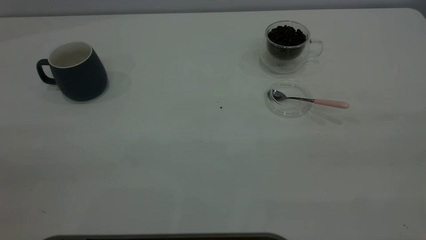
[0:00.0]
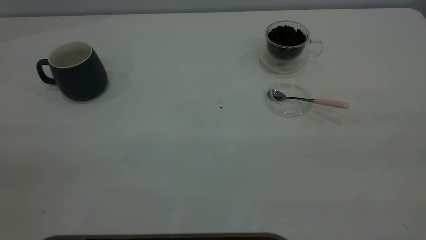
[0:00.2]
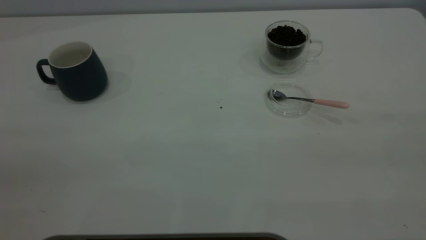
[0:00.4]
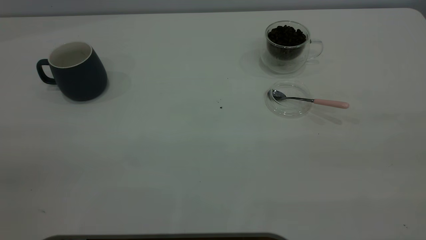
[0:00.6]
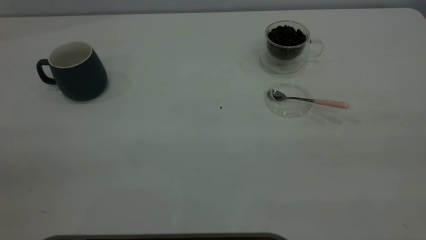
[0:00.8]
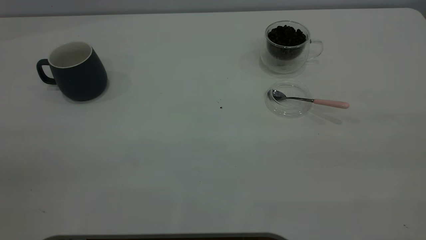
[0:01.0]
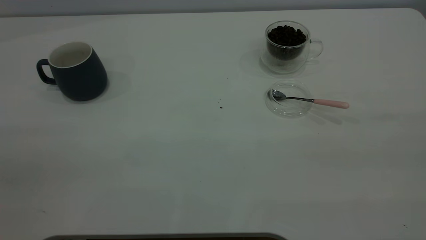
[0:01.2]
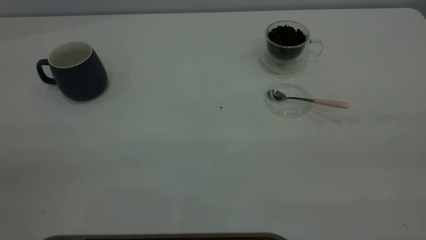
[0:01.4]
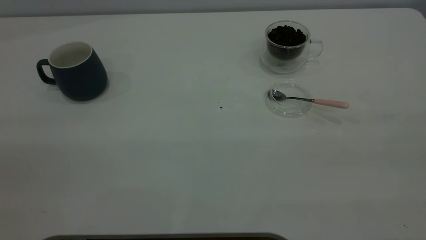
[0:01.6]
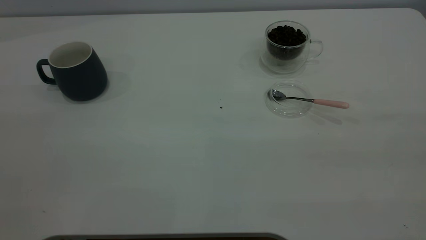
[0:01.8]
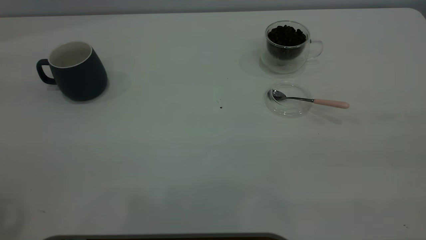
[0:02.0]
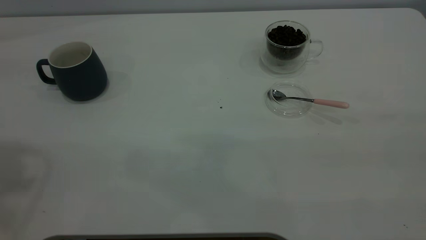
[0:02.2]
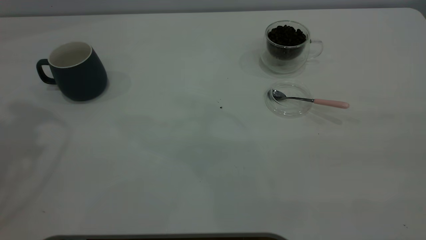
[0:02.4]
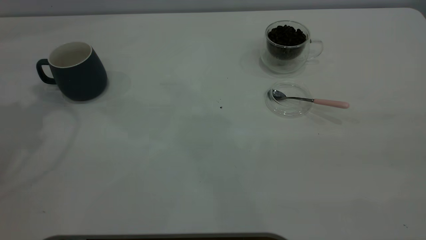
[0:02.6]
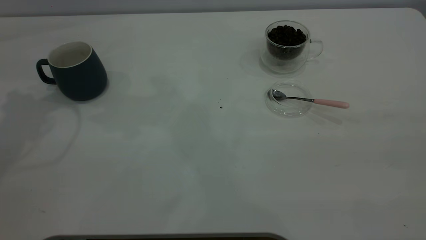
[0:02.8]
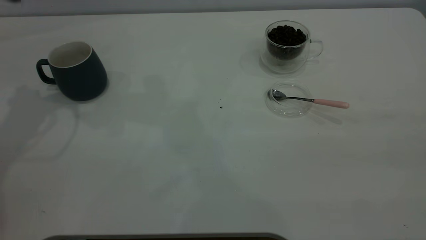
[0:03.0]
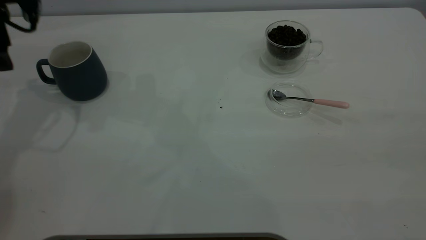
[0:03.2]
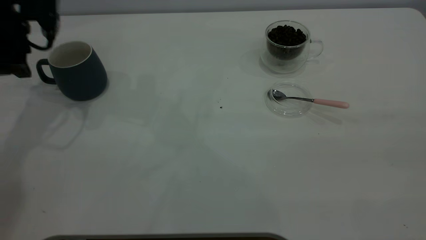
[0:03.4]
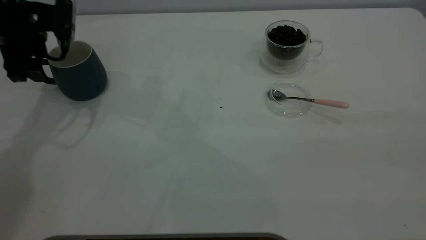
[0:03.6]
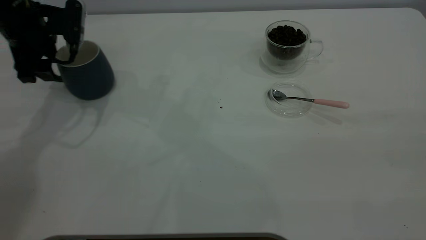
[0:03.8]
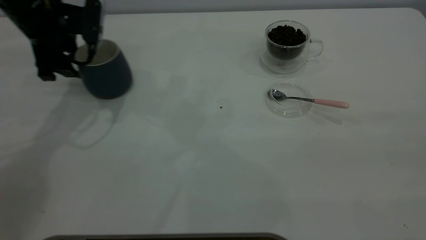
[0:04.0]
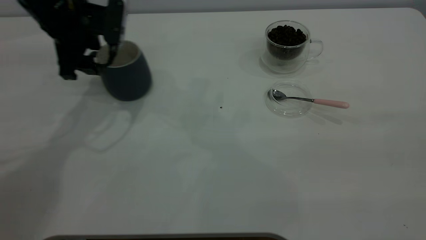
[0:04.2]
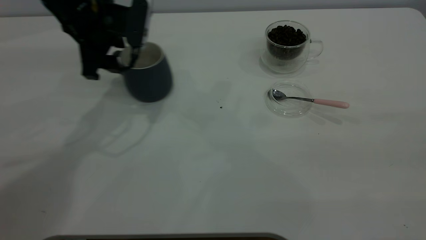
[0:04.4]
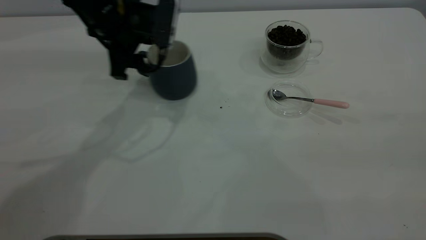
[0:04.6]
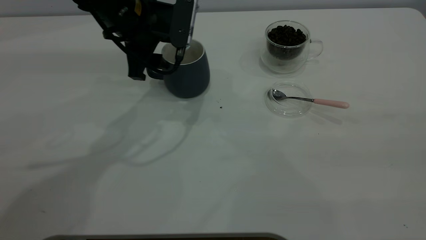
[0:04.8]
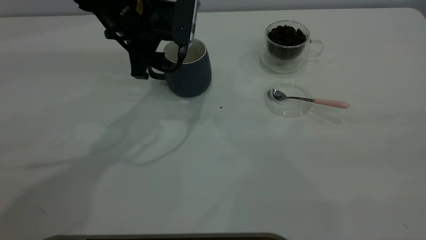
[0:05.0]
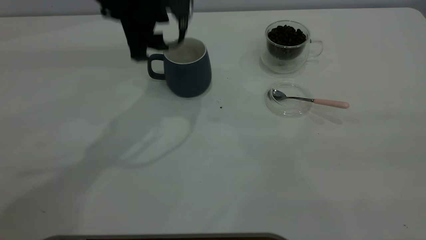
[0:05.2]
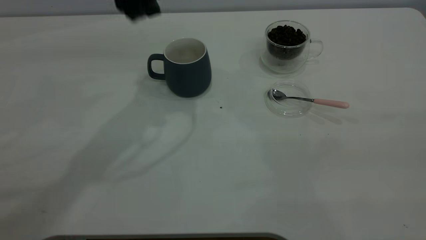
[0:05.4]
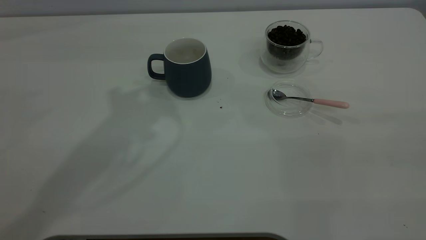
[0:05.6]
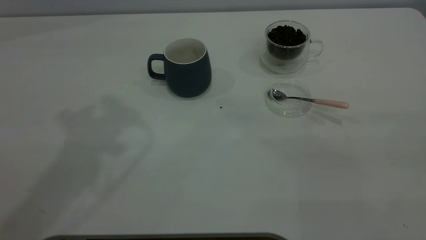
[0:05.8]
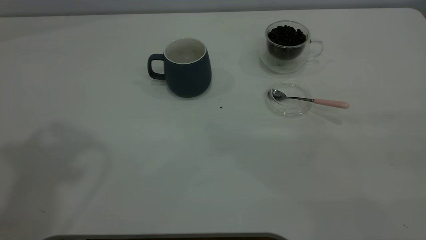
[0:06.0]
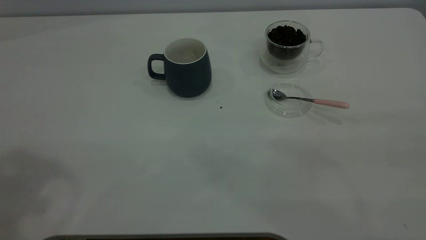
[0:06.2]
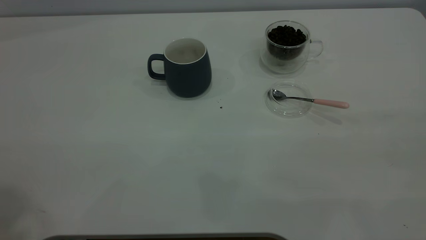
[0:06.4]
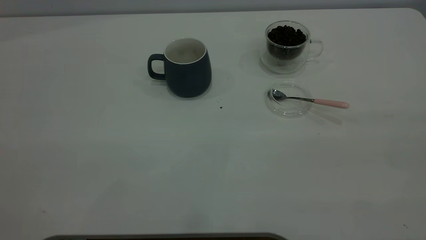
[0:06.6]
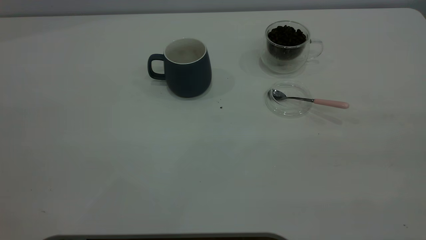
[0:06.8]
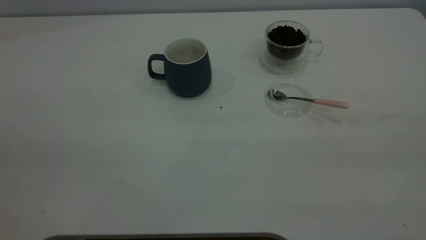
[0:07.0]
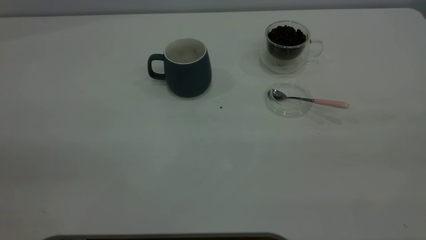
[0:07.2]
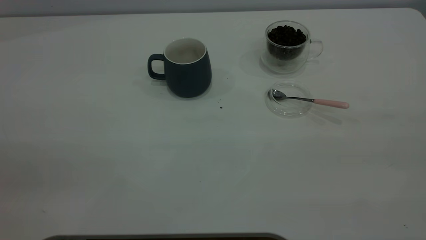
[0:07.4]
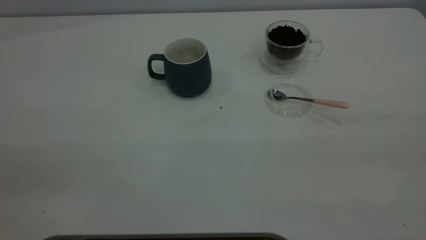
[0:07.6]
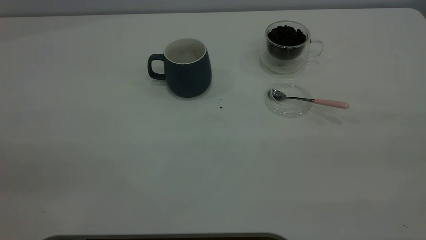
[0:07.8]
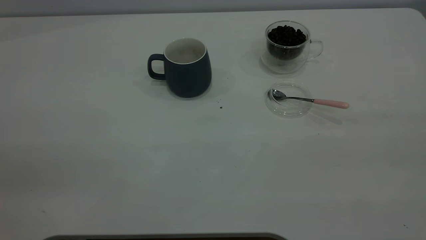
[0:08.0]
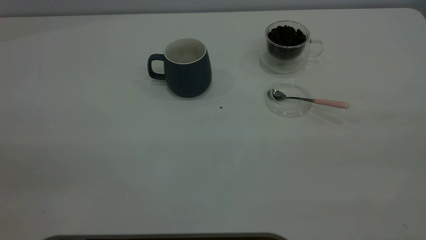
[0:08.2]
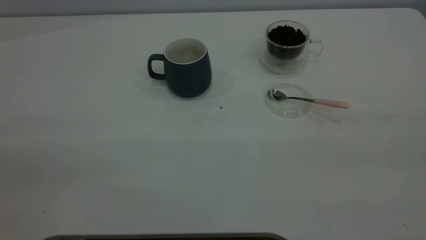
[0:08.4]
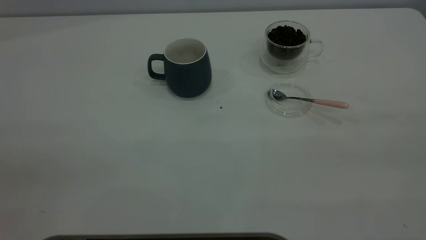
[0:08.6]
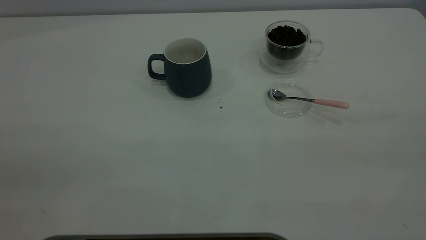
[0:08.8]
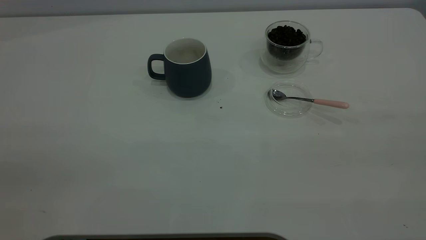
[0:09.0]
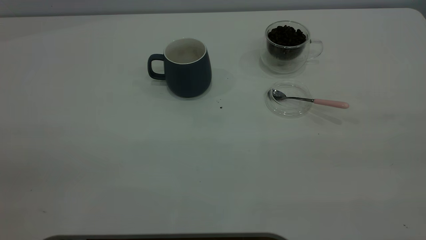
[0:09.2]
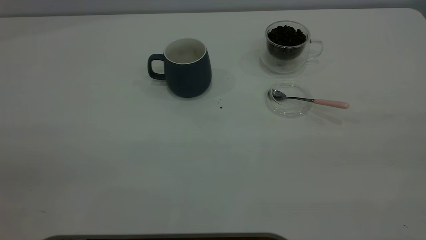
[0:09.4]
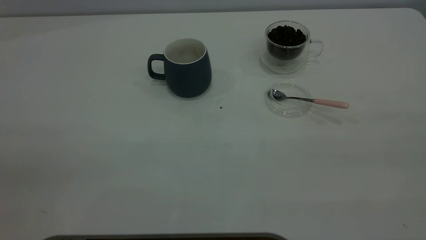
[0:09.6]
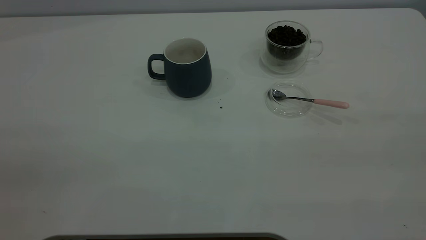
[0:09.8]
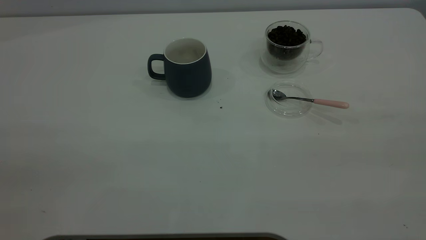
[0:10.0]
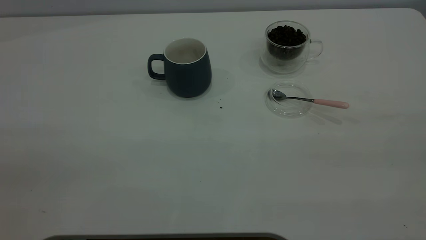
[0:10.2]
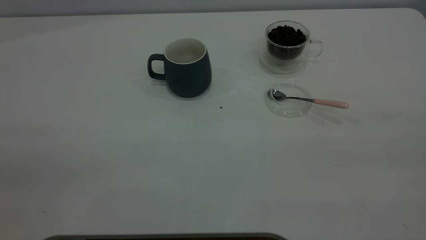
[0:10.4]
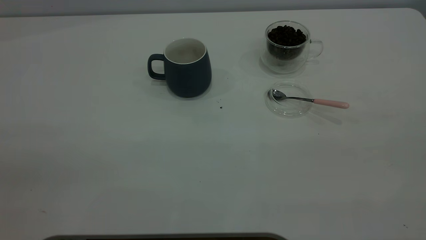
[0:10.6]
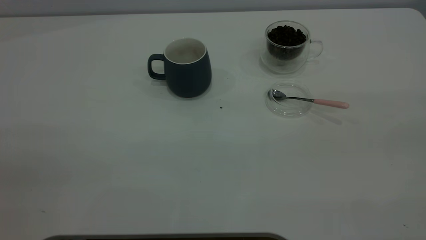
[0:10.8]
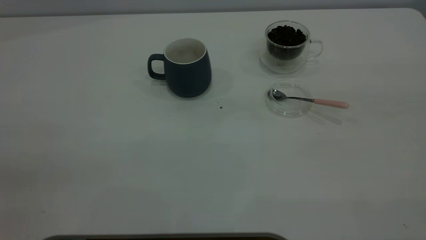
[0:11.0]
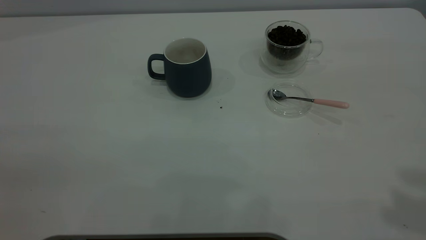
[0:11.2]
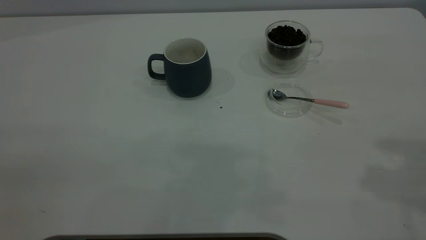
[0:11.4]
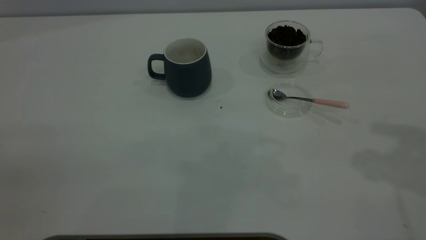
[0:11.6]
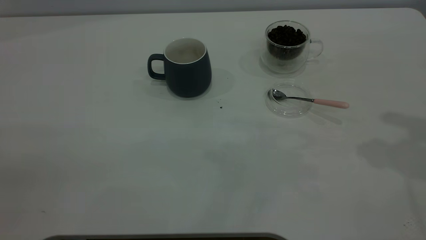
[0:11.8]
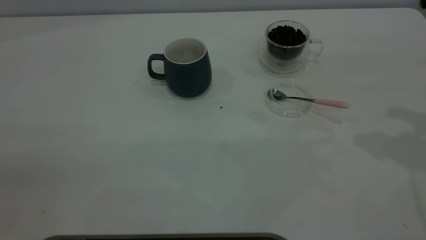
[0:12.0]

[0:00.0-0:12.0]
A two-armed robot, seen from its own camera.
Task of the whole recording: the left gripper place the grey cup in the center of the table, the right gripper take the pink spoon from the cup lid and scoop out the coffee beans from the coffee cup and put them into the grey cup, the right gripper put the spoon back into the cup lid.
Step, 0:00.0 to 0:05.2: Move the cup to the center of view.
0:03.0 to 0:04.4: The left gripper heads to the right and downward, covering about 15 cm.
0:04.4 to 0:06.0: The left gripper travels upward and backward by roughly 35 cm.

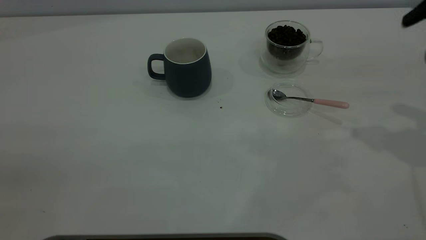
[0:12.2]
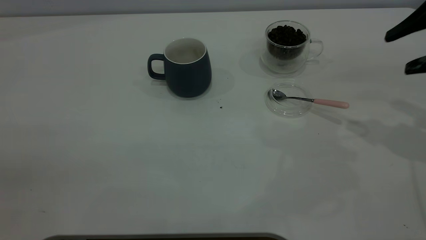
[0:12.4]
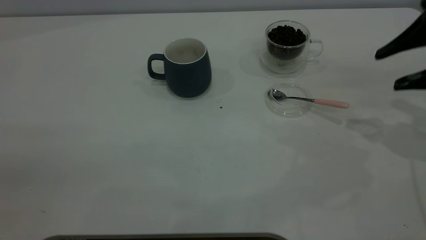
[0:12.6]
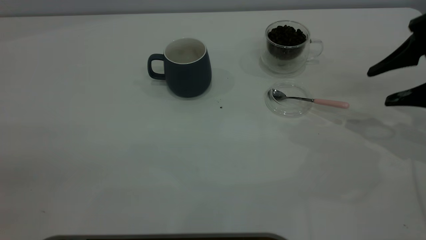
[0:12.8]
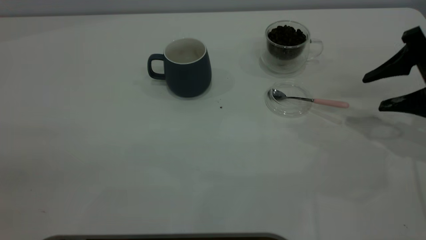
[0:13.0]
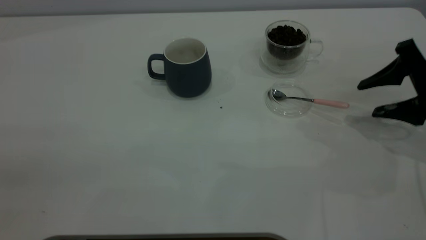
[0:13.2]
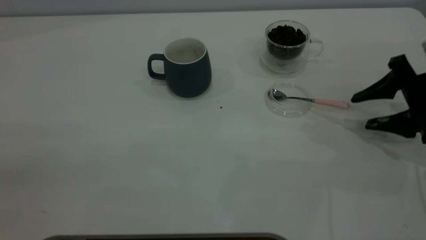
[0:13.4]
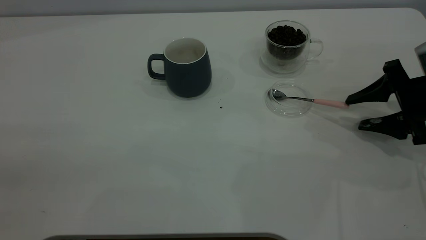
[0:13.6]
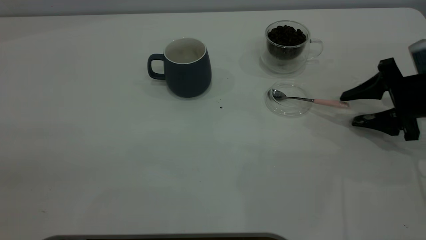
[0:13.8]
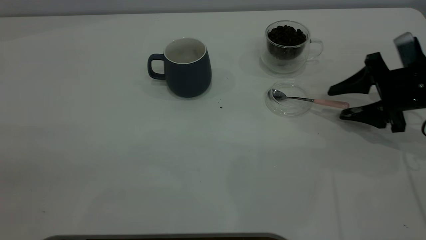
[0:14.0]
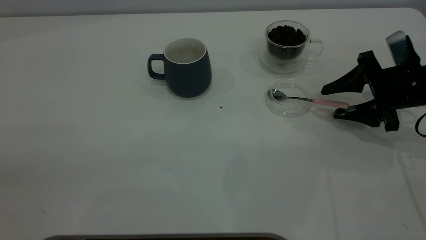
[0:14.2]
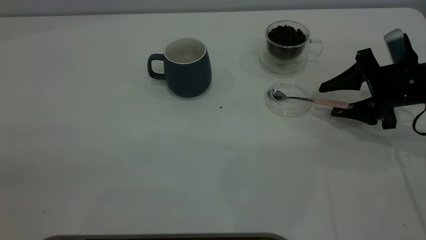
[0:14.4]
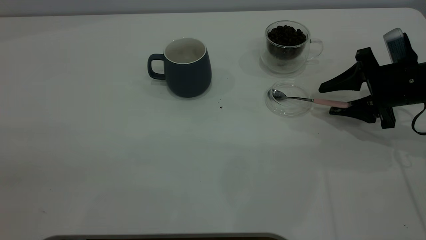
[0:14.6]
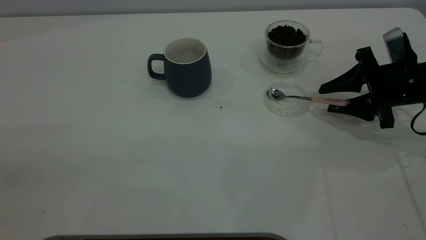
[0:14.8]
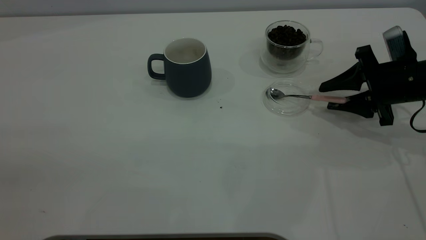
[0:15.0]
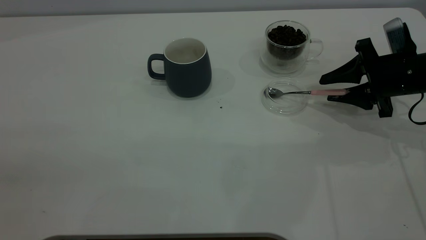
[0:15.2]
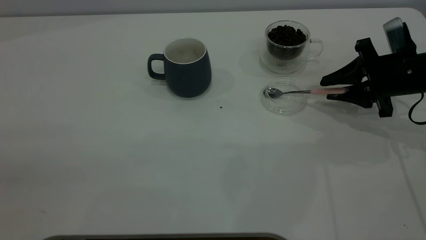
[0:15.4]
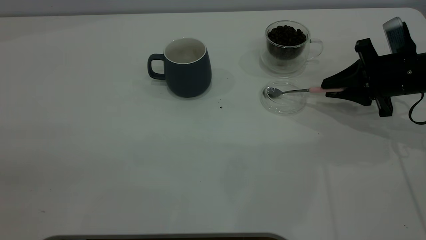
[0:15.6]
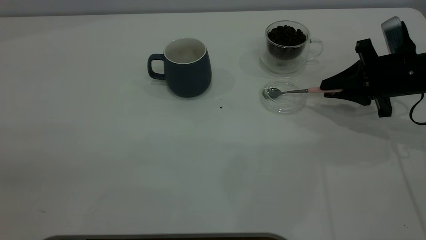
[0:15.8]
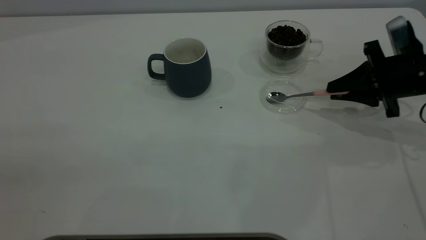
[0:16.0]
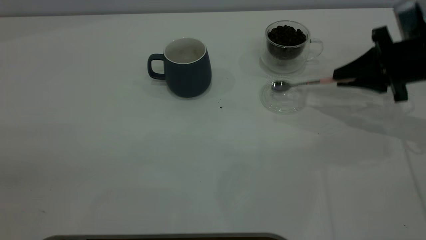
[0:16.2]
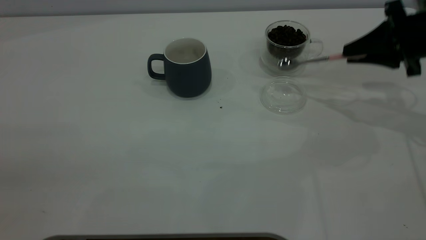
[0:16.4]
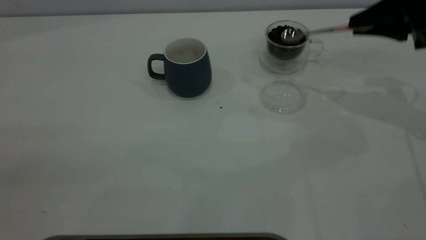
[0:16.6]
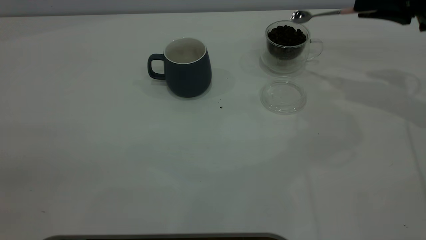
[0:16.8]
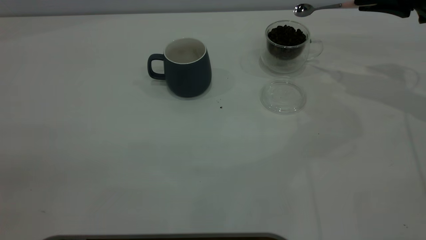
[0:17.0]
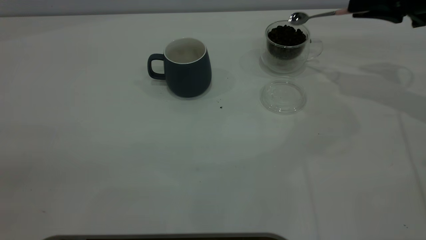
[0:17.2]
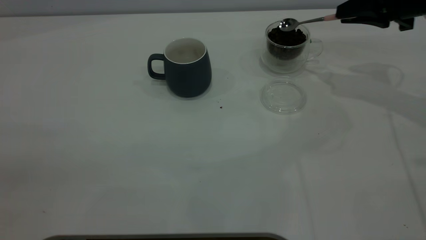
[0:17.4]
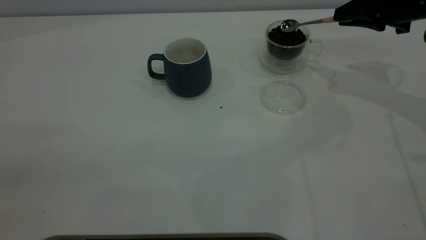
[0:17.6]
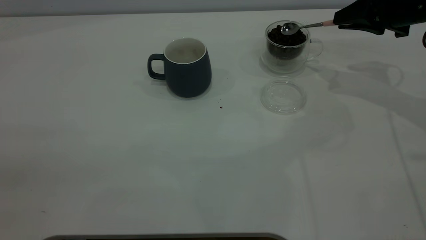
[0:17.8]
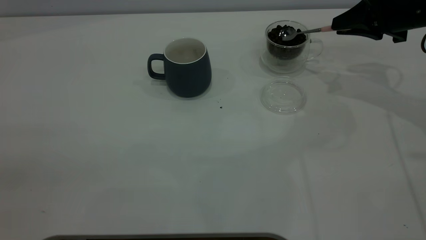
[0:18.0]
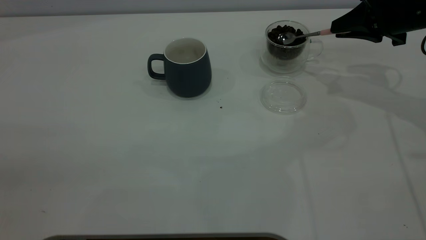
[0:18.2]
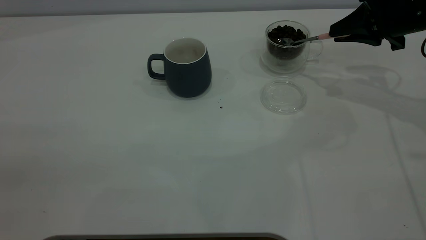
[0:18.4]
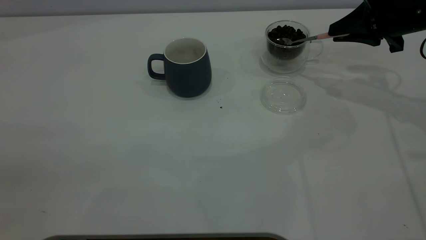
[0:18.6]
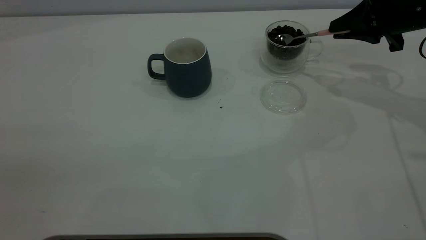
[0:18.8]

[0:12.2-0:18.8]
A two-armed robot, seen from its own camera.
Task of the whole recording: the left gripper place the grey cup in the center of the table, the right gripper take the pink spoon from the cup lid and scoop out the coffee beans from the coffee cup and put them into the grey cup, the right gripper put the spoon back into the cup lid.
Step, 0:12.2 to 0:16.2: Pick up the spoon.
0:12.2 to 0:13.8: The right gripper shifts some 20 cm downward.
0:13.8 to 0:15.4: The right gripper closes.
0:15.4 to 0:17.2: The right gripper moves upward and forward, some 10 cm, and closes up.
0:17.2 to 0:18.8: The grippers move only a little.
